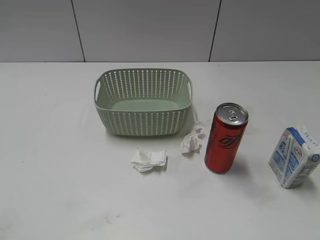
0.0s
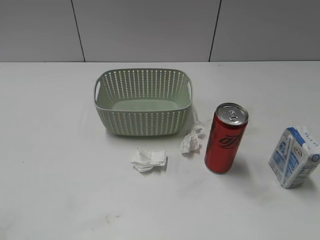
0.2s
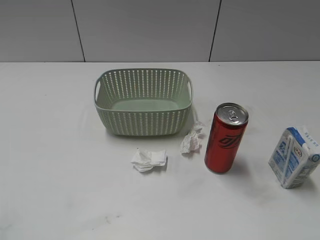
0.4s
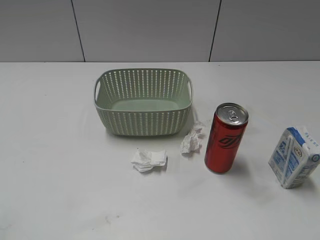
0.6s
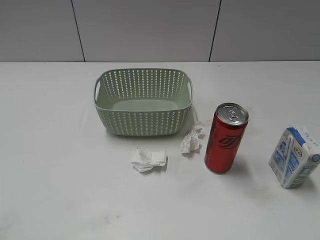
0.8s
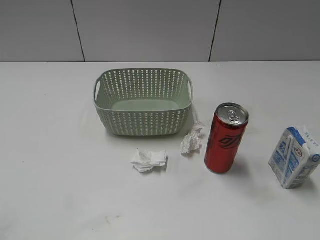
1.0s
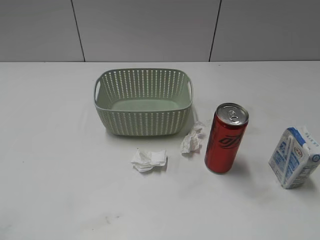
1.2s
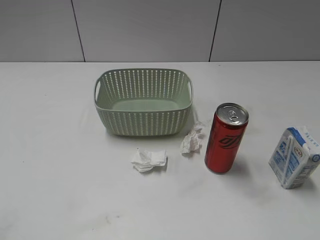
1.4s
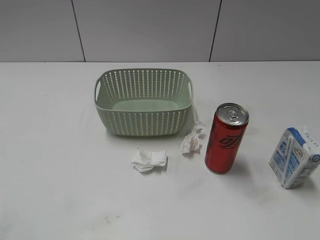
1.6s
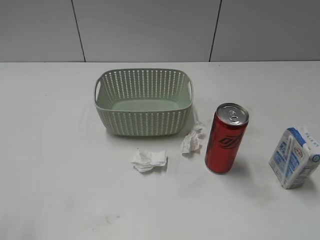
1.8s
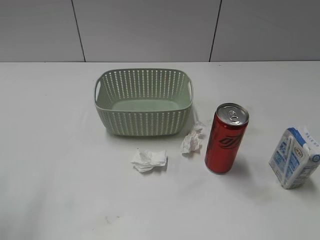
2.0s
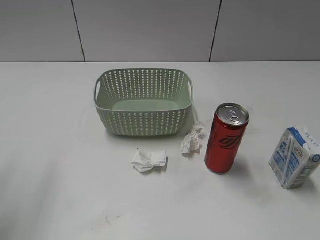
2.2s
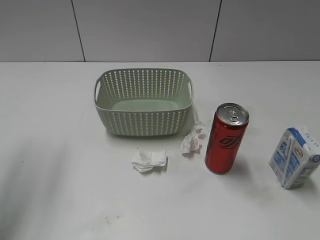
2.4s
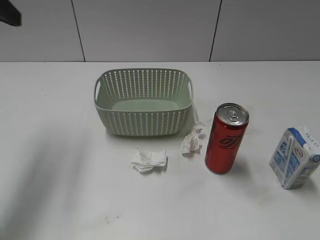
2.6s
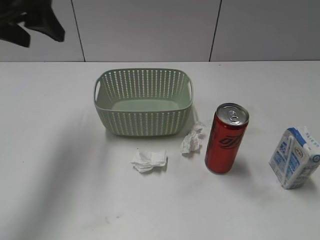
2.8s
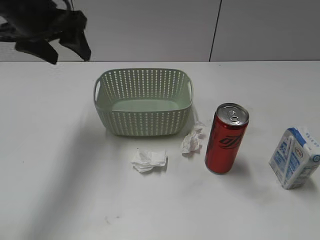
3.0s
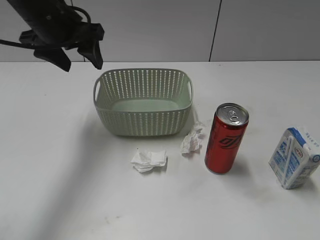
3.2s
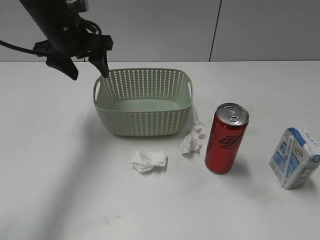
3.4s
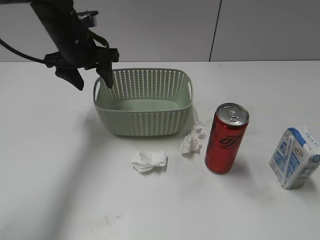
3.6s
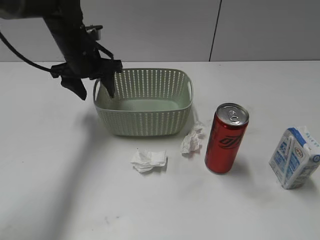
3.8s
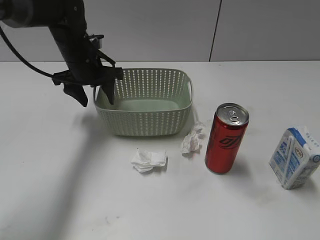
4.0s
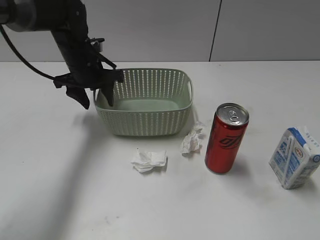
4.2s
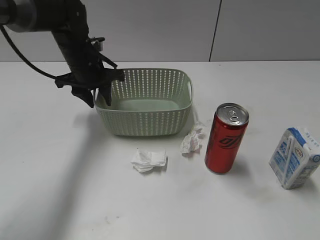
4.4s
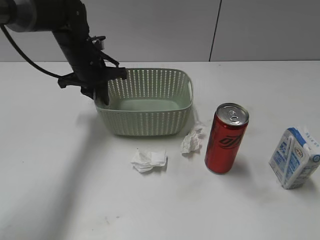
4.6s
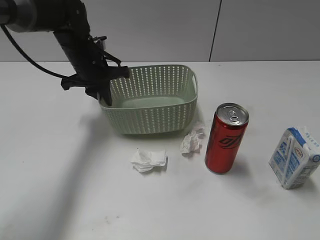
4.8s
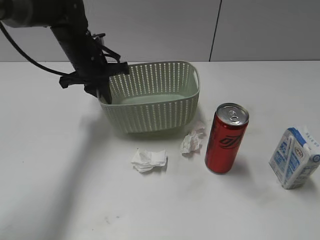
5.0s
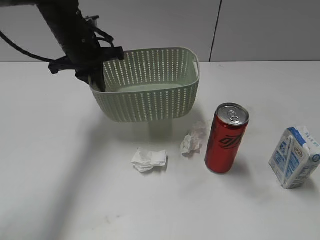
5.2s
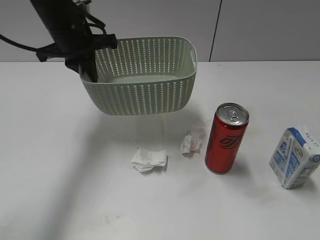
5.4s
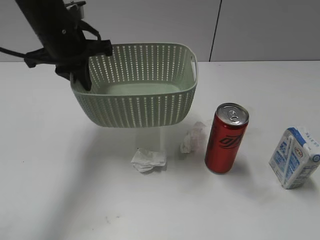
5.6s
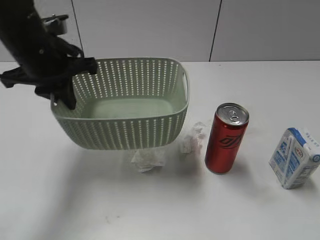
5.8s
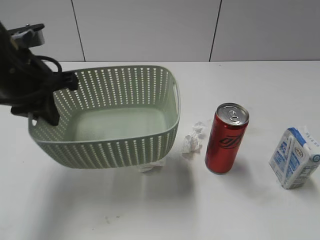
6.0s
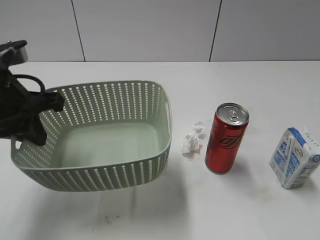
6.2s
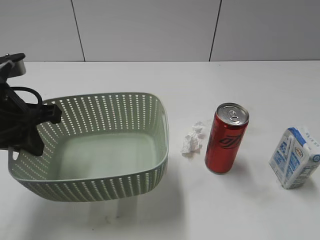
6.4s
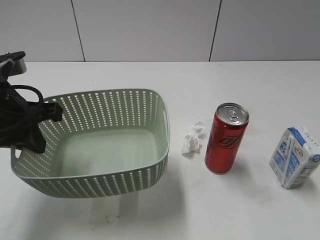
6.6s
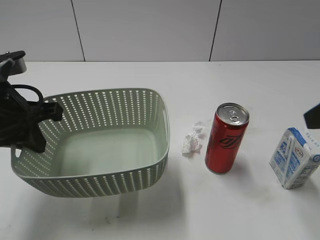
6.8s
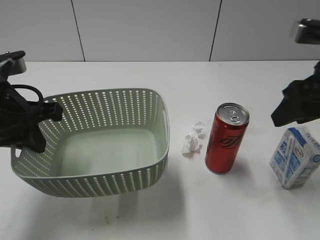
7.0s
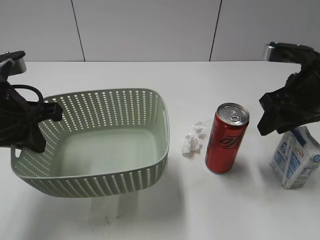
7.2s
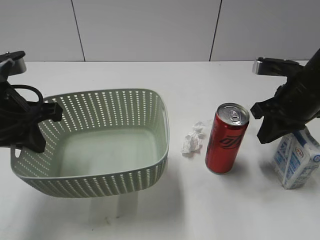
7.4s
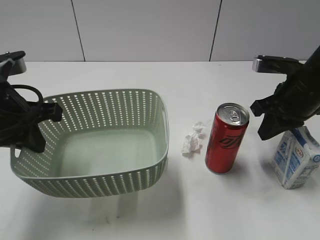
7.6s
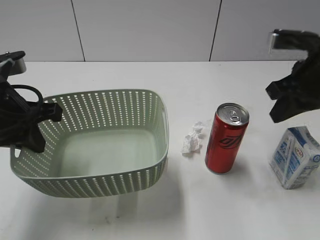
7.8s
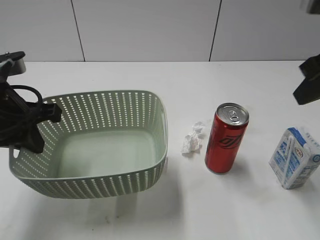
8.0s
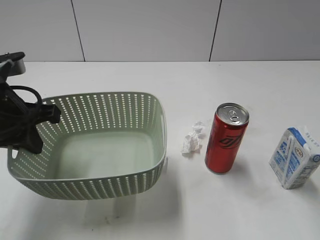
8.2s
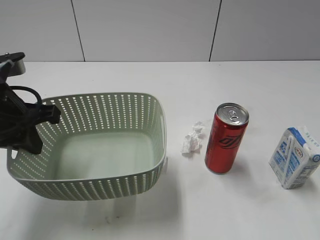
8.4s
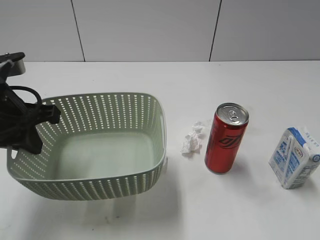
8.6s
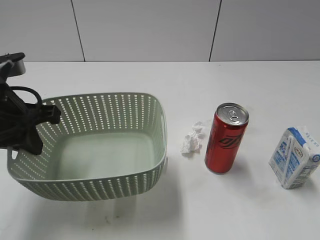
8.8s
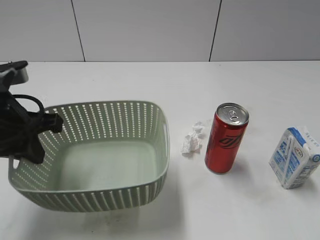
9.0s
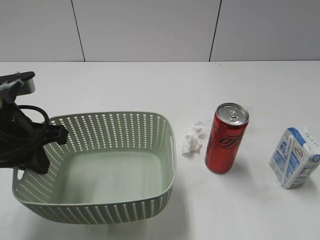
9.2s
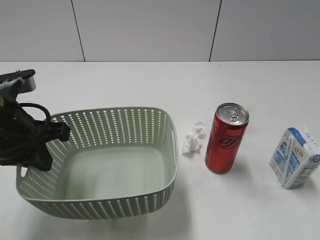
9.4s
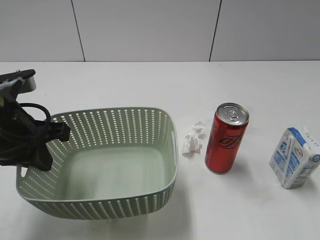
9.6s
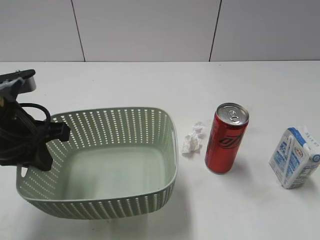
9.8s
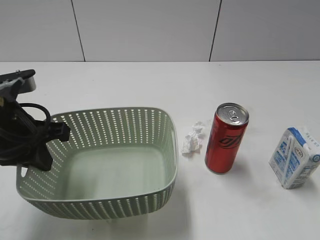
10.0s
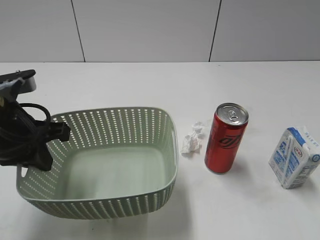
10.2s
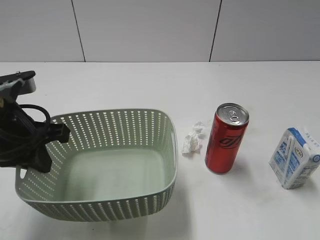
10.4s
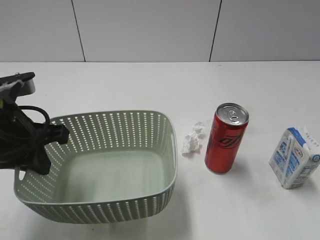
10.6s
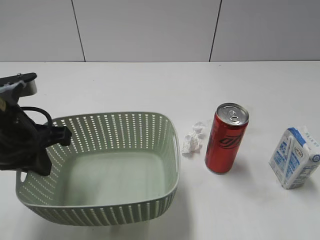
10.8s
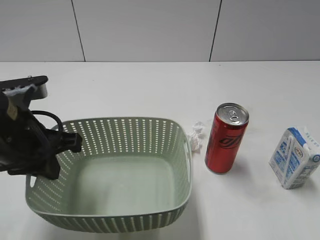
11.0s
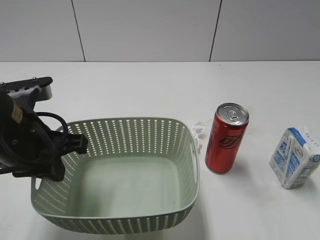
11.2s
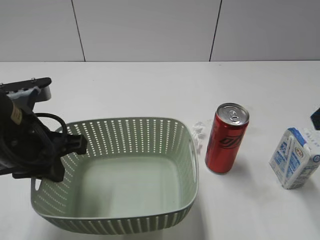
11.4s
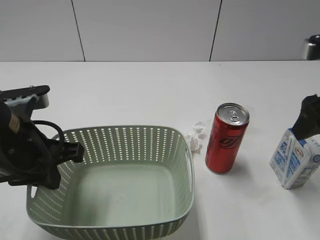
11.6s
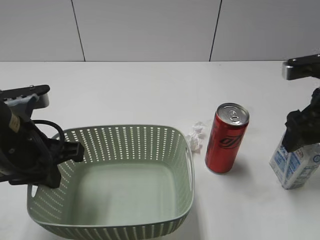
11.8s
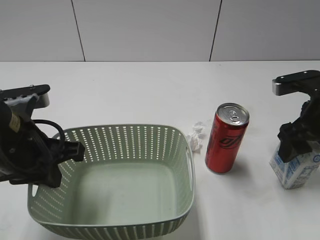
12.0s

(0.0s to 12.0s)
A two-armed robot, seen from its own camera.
Step, 2.6s - 4.6s: Grasp the basket with left gripper.
Step, 4.8s - 11.2s: Lift the basket with left gripper.
1.6s - 3.0s: The left gripper goes about 30 cm forward.
3.0s - 4.4s: The left gripper travels downward and forward by approximately 15 cm, and closes up.
4.4s - 6.0s: The left gripper shifts approximately 20 cm backward and upward, and closes up.
6.0s - 7.6s: The right gripper travels forward by some 30 cm, and closes its fingers.
7.6s - 9.0s: The right gripper heads backward and upward, covering approximately 35 cm, and opens up.
9.0s - 10.4s: The right gripper moves downward, some 5 cm.
10.4s - 12.0s: The right gripper heads forward, covering about 30 cm.

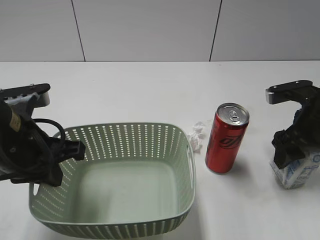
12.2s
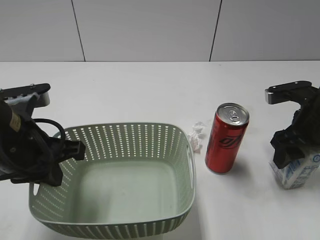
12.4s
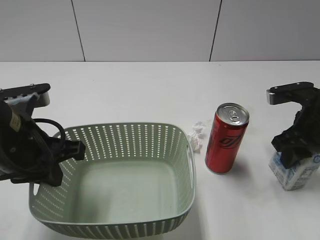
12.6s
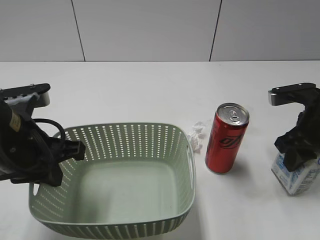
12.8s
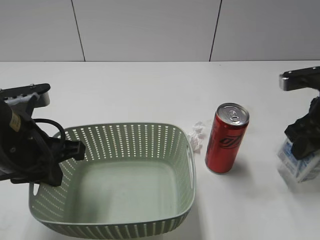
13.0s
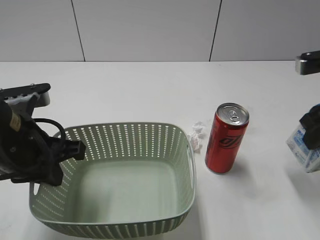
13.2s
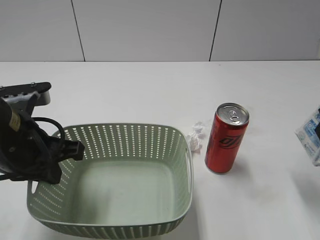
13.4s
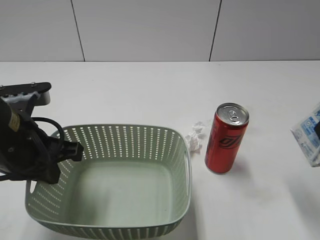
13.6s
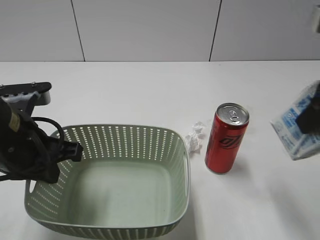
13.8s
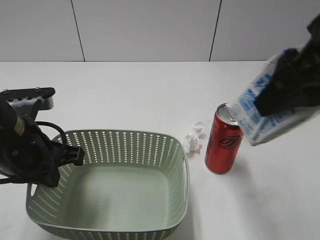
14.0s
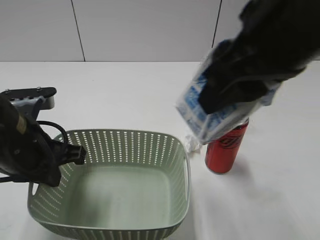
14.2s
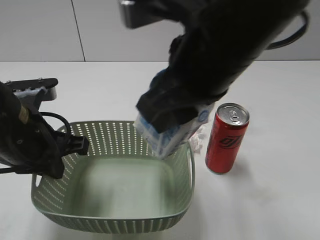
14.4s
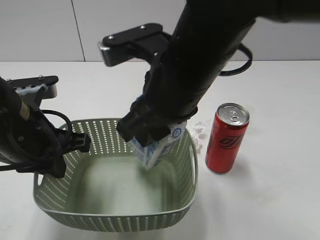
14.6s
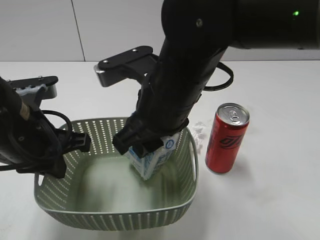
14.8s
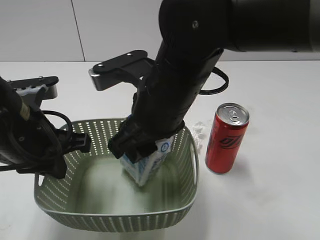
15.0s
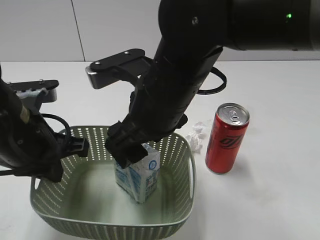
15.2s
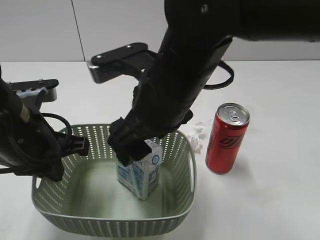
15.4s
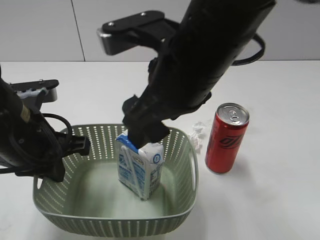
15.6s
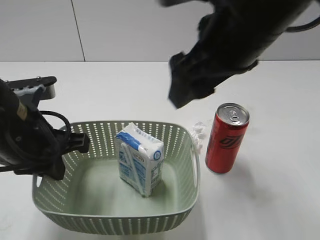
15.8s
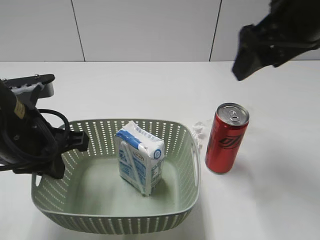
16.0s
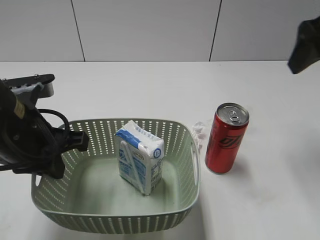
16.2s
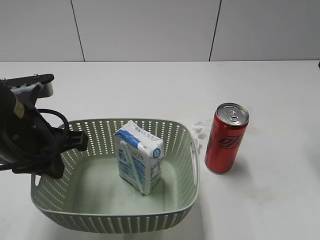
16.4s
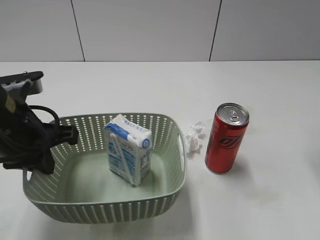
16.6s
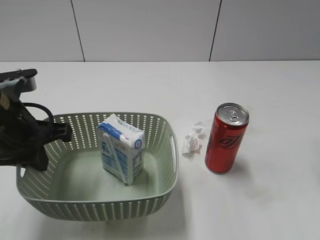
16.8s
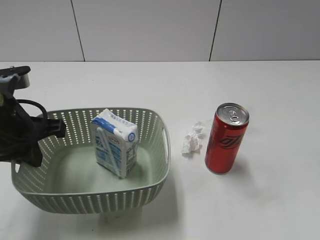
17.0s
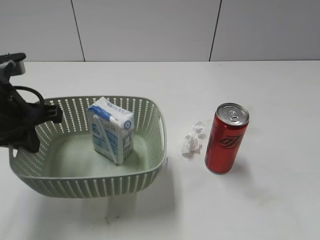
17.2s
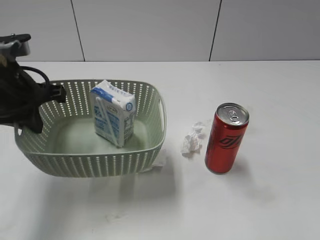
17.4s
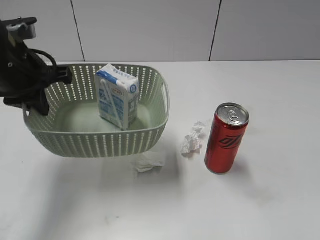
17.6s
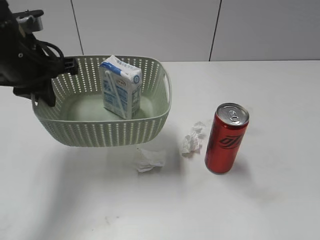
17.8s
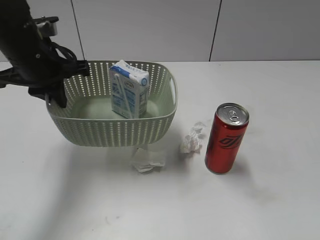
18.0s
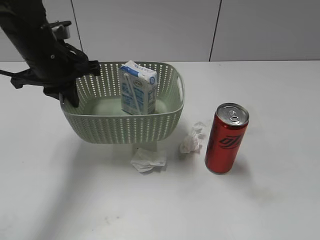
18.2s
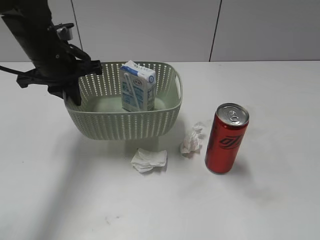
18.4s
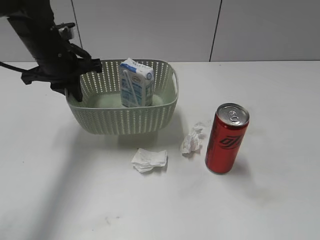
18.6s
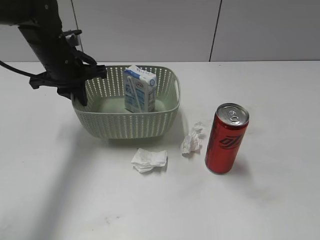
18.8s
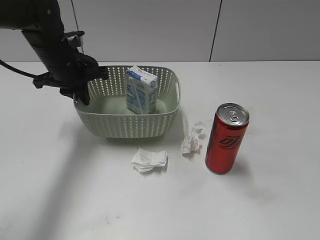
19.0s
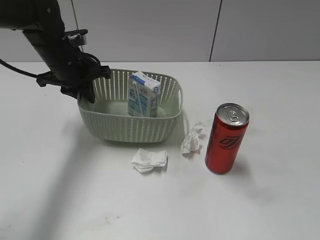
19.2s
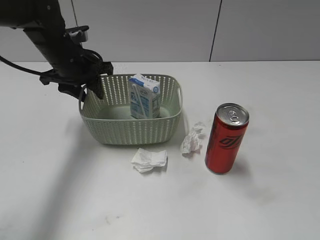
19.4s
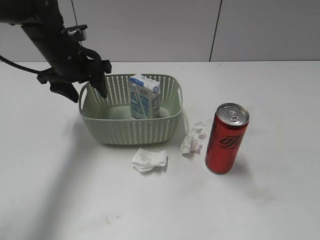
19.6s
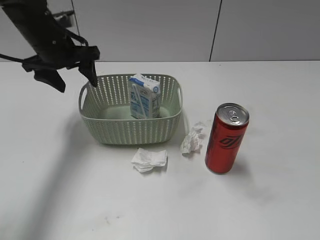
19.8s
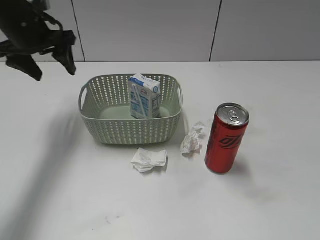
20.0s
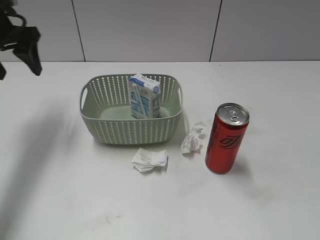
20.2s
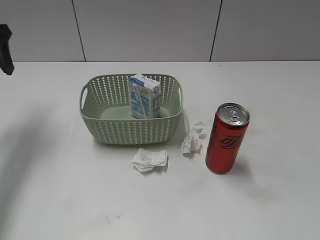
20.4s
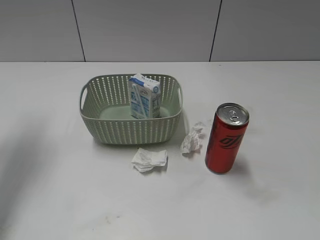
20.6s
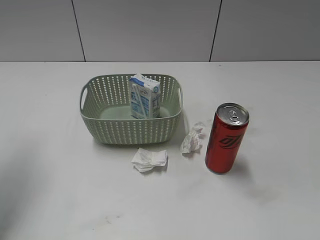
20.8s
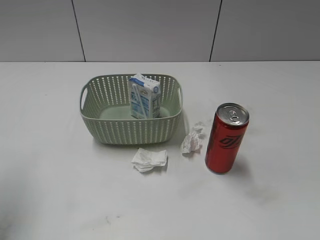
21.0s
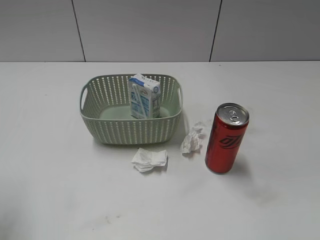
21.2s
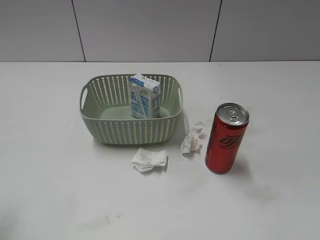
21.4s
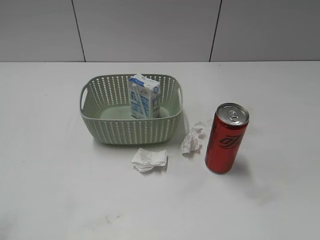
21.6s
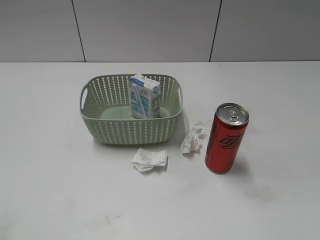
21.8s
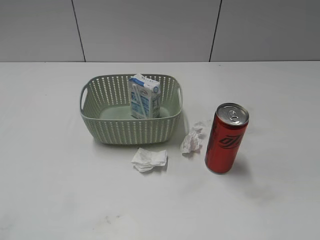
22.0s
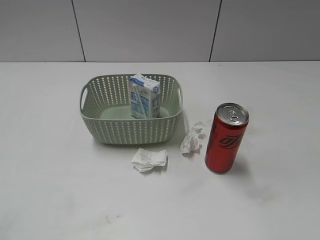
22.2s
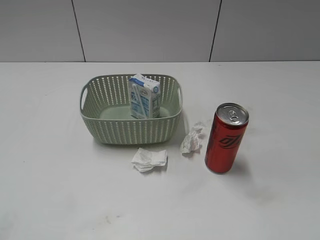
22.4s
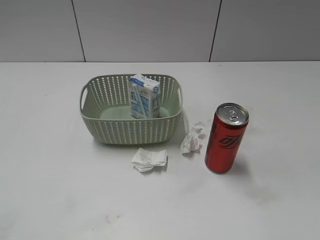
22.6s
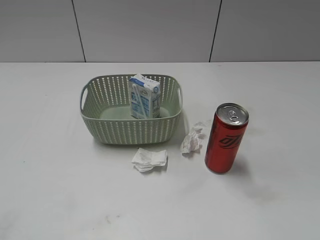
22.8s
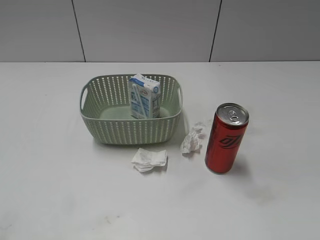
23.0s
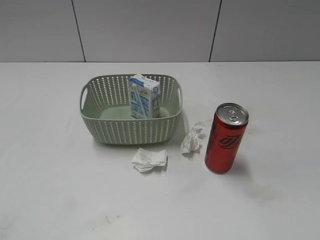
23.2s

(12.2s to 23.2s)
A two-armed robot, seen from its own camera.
Step, 12.8s - 15.6s: Place the milk in the basket with right gripper.
Step, 15.8s - 19.6s: Place the basket on the table with left gripper.
12.2s - 13.8s: The right gripper moves upward and backward, about 20 cm, and closes.
13.8s - 15.4s: The right gripper goes some 20 cm to the left, and opens.
15.4s - 17.0s: The right gripper shifts roughly 30 cm to the right.
17.0s - 18.4s: The right gripper moves backward, approximately 20 cm. The left gripper goes approximately 15 cm forward.
18.4s - 20.0s: The left gripper heads to the left, covering about 5 cm, and opens its fingers.
20.0s - 21.6s: The left gripper is displaced backward by approximately 30 cm.
